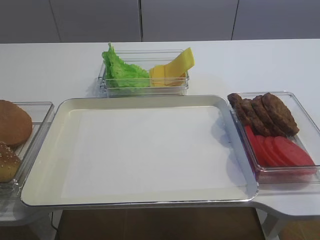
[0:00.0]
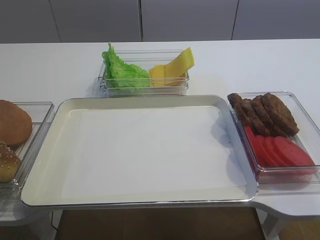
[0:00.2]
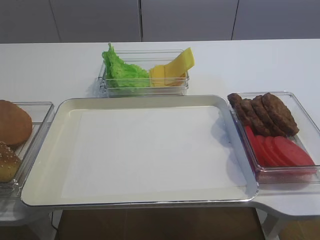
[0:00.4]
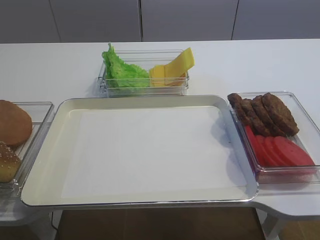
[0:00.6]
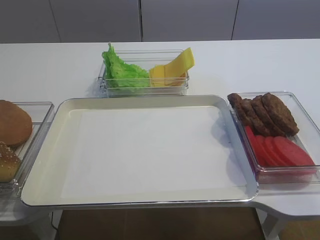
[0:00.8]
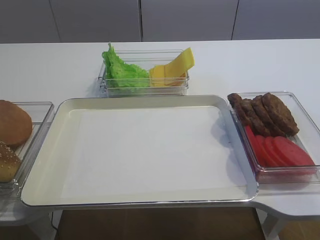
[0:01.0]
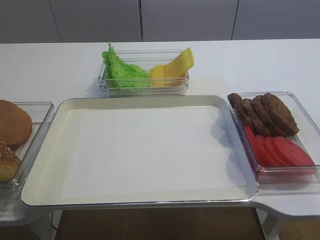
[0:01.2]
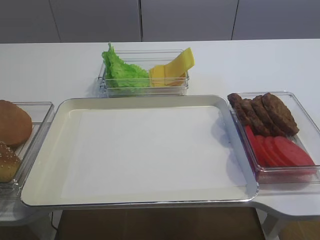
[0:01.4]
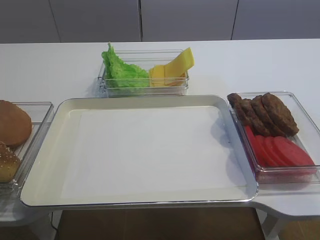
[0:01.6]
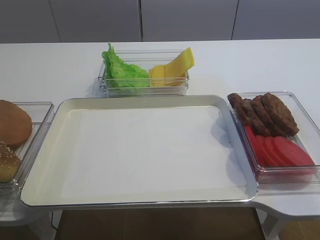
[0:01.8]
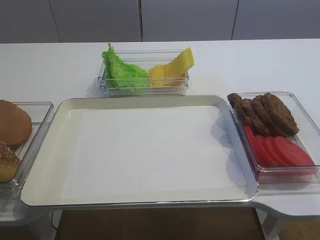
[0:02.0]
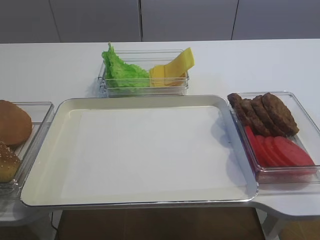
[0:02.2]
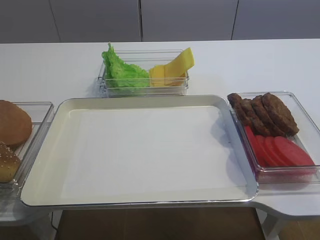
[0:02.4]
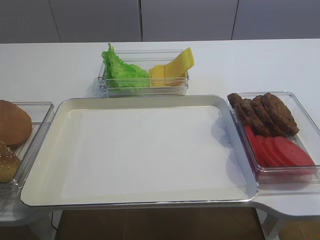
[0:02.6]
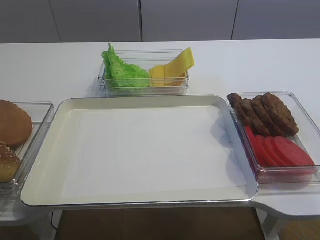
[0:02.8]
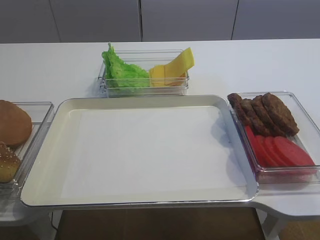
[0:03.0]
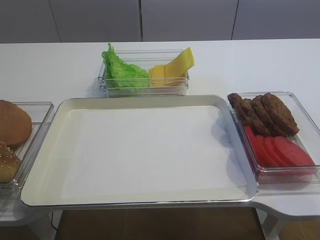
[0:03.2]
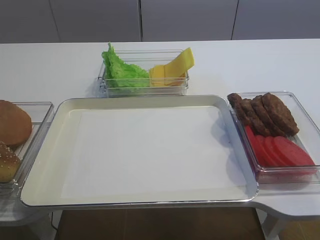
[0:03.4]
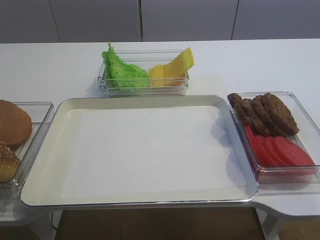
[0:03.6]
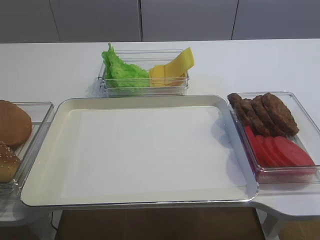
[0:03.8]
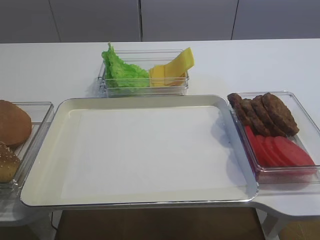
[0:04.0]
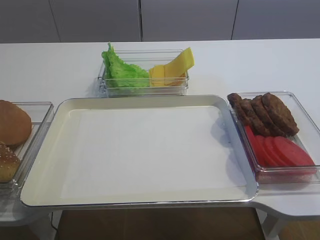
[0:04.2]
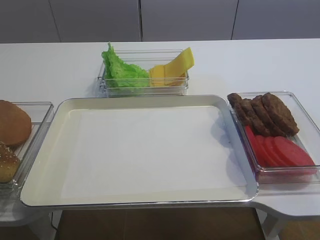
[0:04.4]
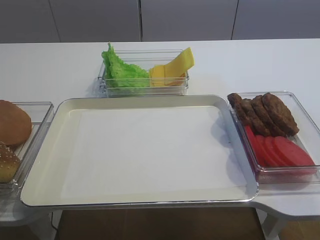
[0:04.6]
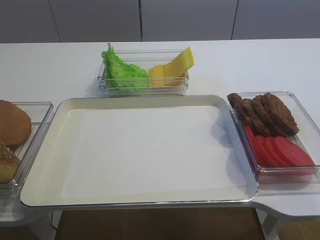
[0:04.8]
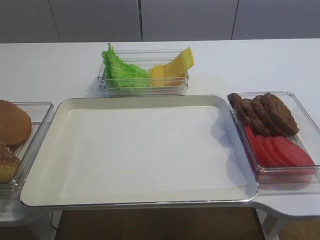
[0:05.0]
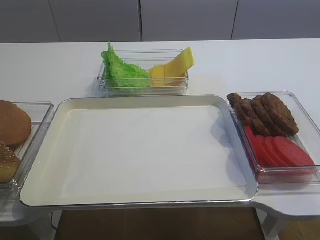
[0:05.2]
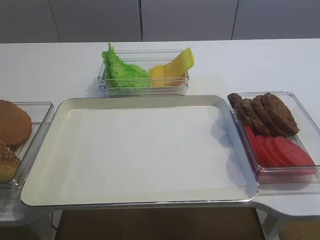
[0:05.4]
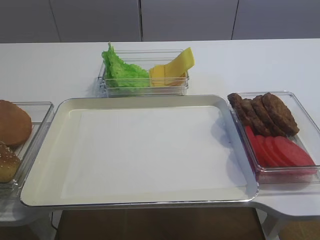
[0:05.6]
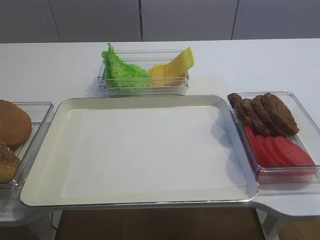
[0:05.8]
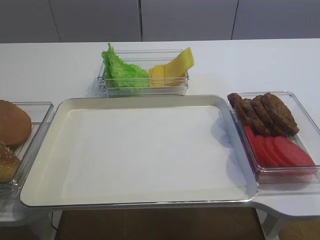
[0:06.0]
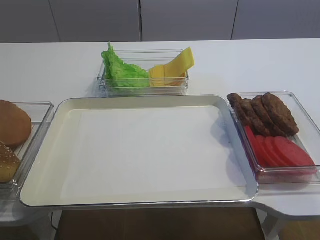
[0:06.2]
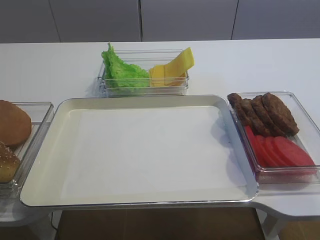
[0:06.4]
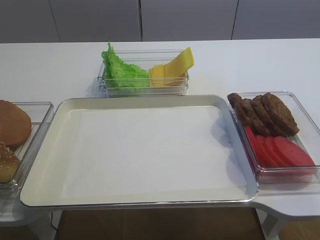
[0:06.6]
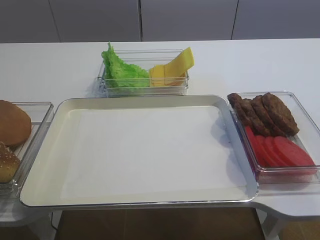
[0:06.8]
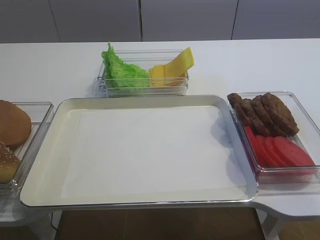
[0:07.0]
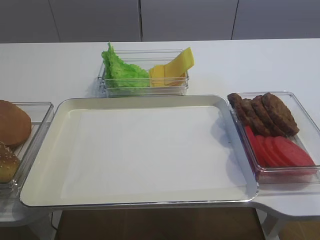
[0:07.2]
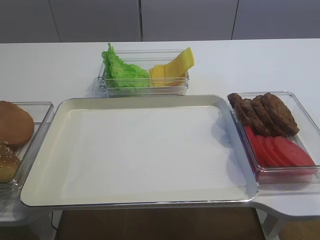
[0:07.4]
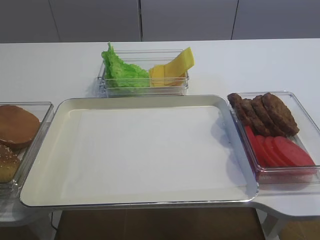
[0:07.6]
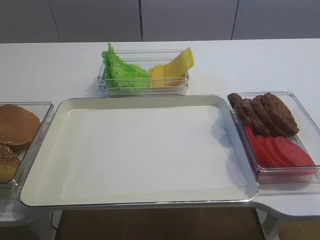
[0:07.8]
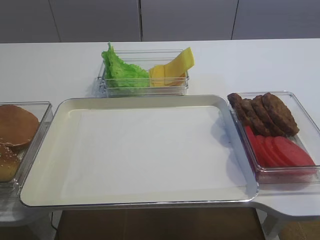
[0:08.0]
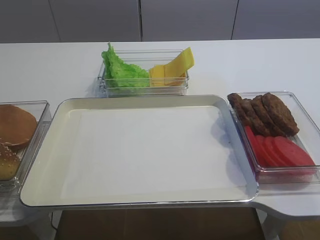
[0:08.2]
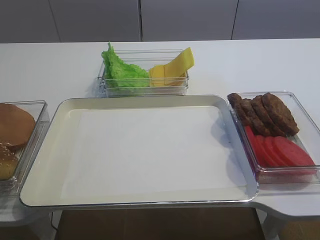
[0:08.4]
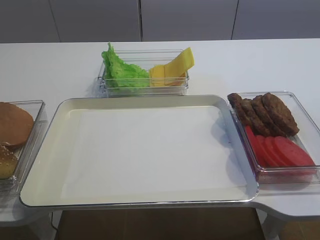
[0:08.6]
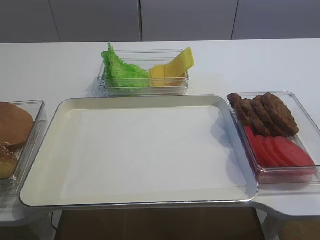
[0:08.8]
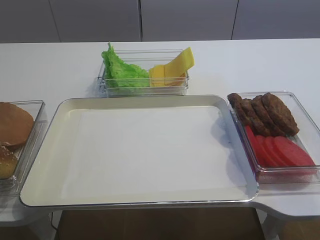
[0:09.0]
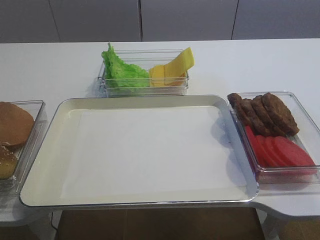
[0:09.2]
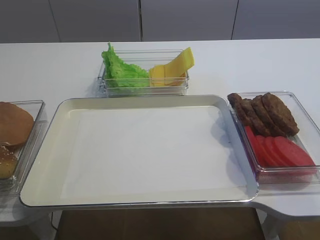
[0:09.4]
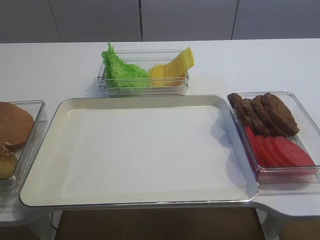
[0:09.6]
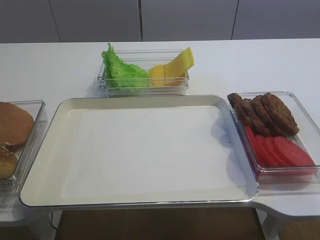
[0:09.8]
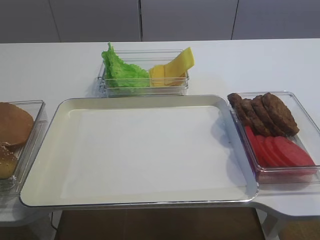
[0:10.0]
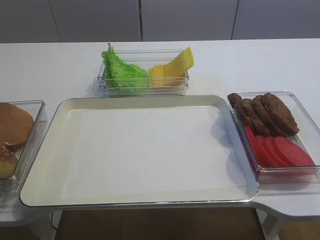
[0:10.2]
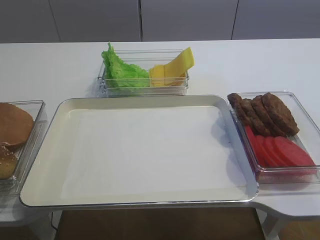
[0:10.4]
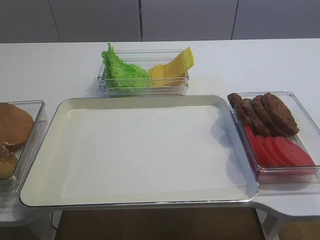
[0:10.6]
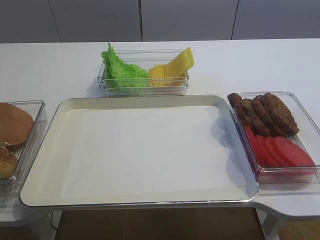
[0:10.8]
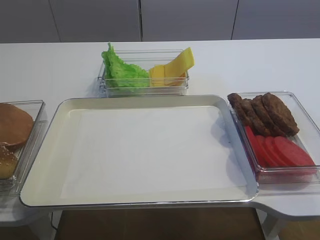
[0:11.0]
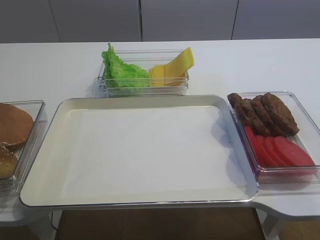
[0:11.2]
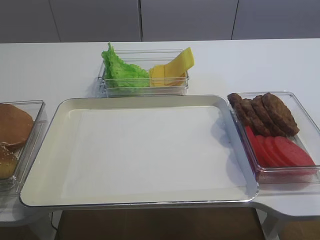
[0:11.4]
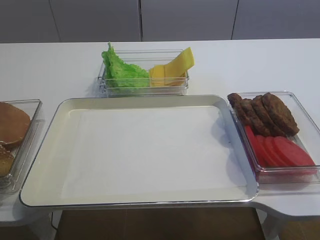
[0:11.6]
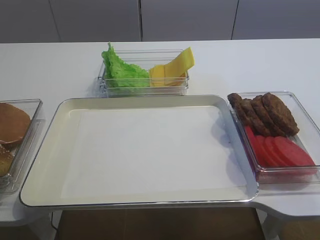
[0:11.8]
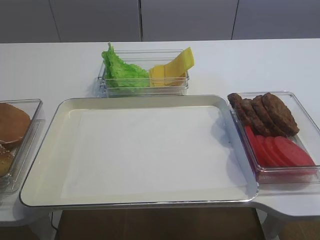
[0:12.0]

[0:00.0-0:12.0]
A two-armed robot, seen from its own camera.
0:07.6 to 0:09.0: The left gripper closes its fingers.
0:09.0 to 0:10.4: The two grippers keep their place.
0:10.4 to 0:12.0: The grippers stay close to where they were, moving slightly.

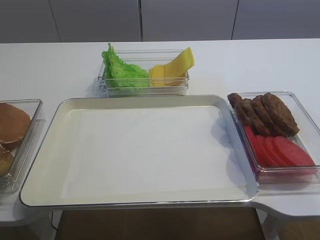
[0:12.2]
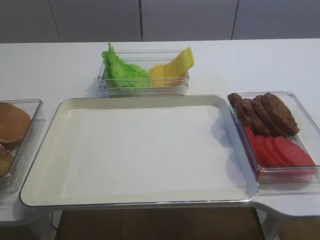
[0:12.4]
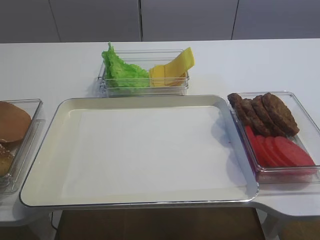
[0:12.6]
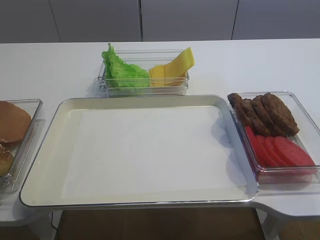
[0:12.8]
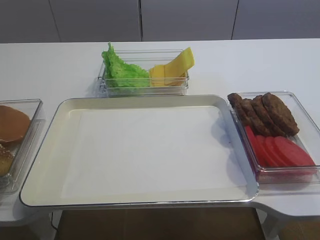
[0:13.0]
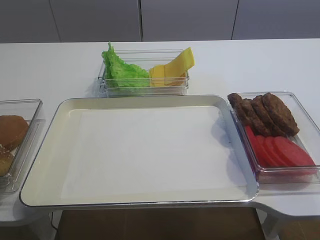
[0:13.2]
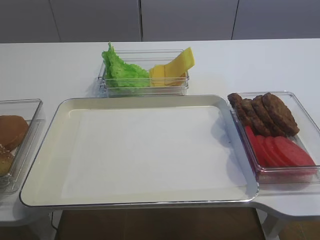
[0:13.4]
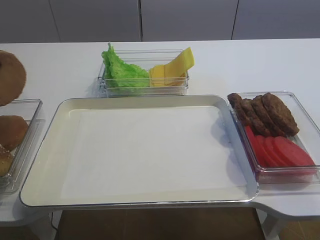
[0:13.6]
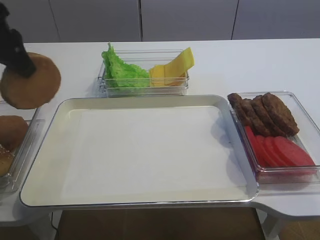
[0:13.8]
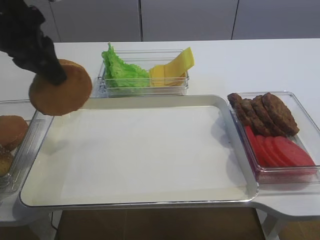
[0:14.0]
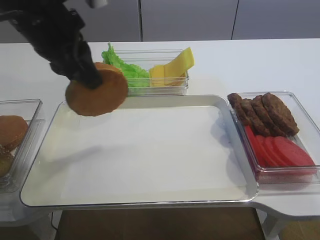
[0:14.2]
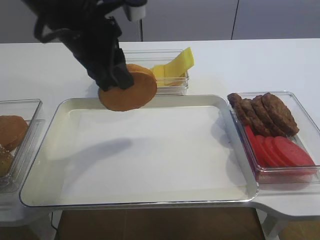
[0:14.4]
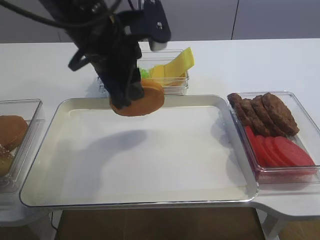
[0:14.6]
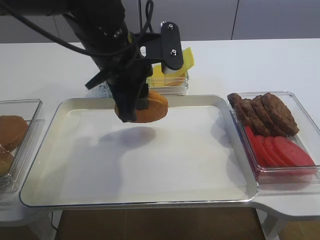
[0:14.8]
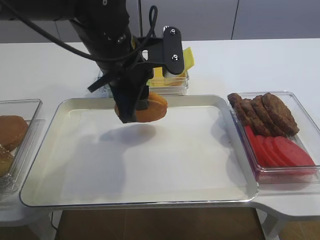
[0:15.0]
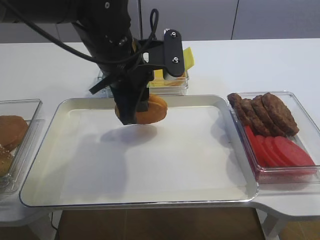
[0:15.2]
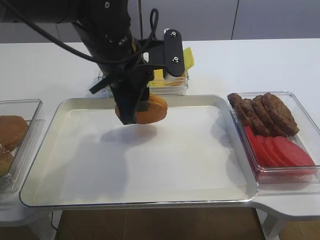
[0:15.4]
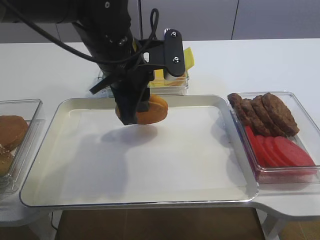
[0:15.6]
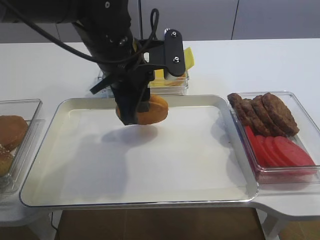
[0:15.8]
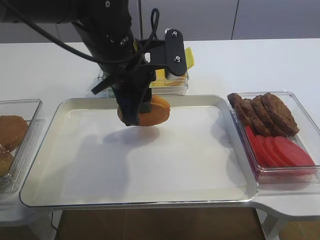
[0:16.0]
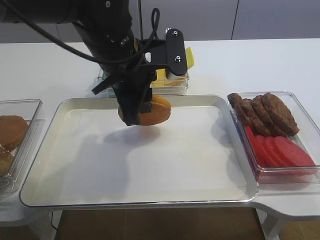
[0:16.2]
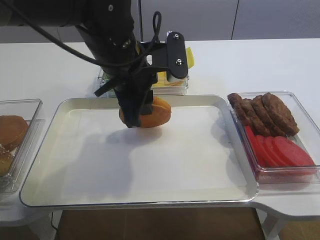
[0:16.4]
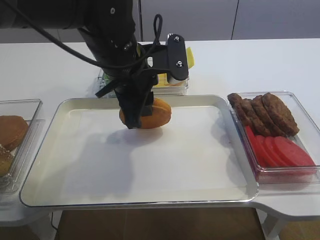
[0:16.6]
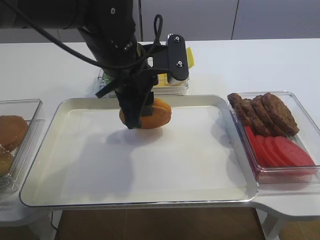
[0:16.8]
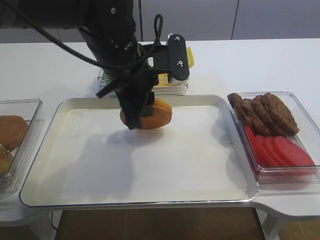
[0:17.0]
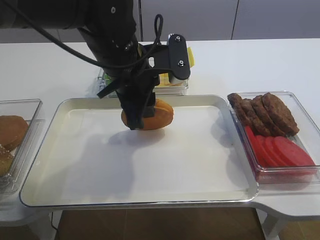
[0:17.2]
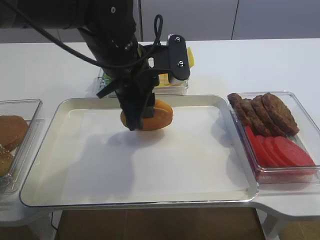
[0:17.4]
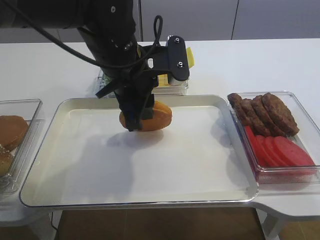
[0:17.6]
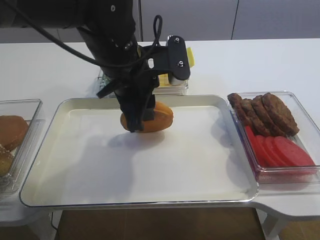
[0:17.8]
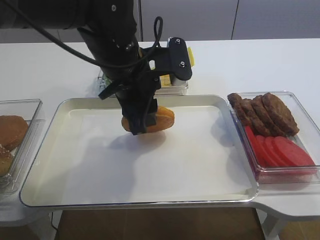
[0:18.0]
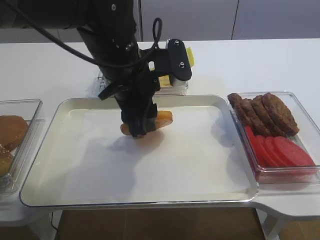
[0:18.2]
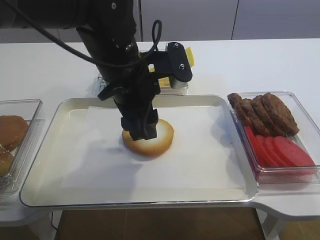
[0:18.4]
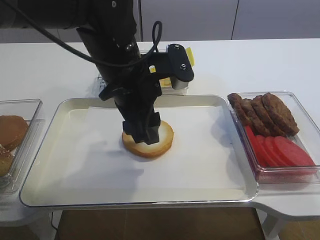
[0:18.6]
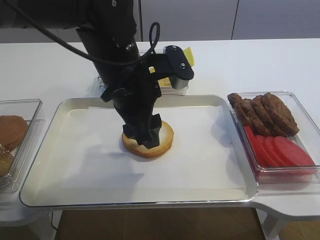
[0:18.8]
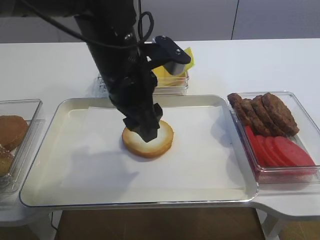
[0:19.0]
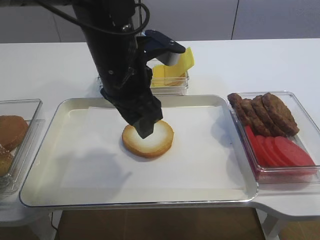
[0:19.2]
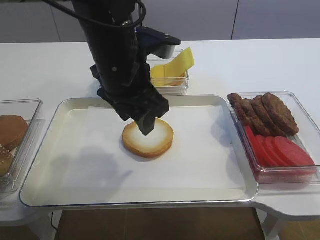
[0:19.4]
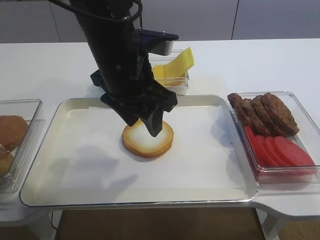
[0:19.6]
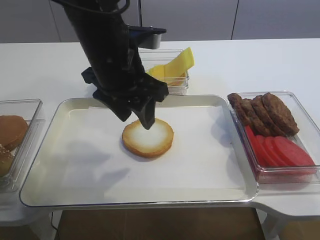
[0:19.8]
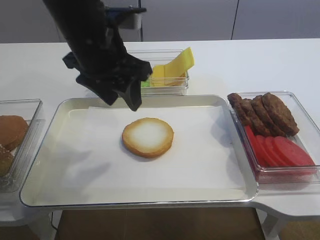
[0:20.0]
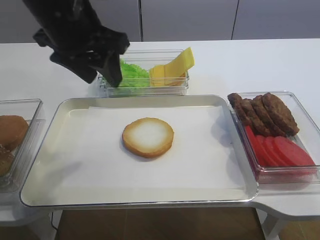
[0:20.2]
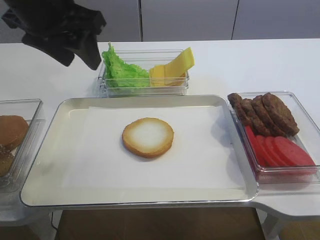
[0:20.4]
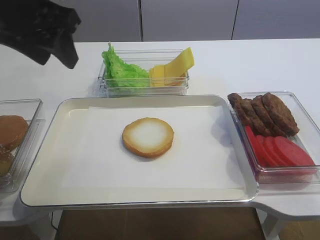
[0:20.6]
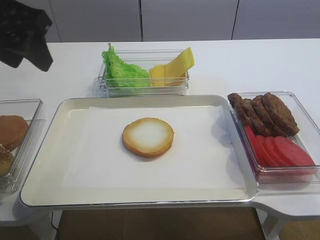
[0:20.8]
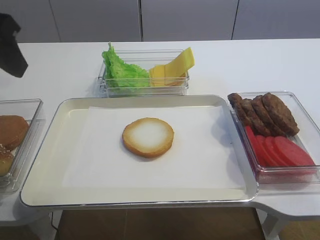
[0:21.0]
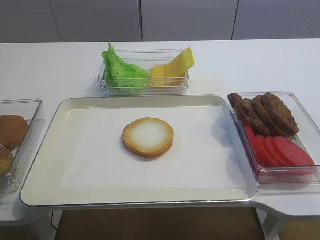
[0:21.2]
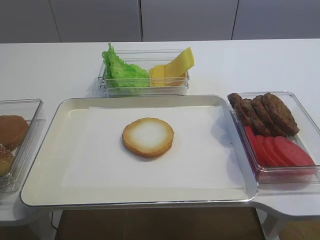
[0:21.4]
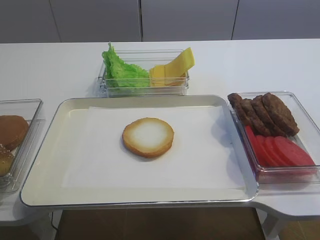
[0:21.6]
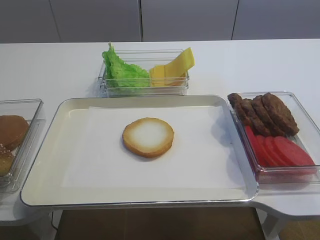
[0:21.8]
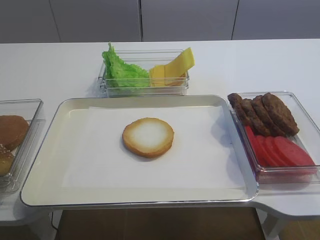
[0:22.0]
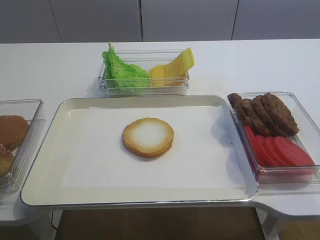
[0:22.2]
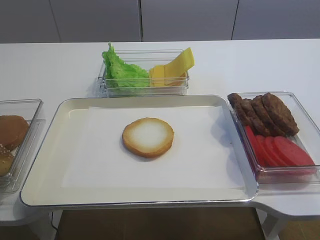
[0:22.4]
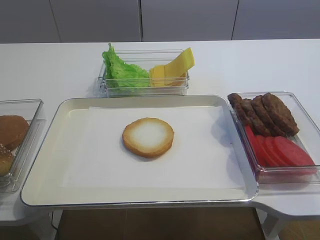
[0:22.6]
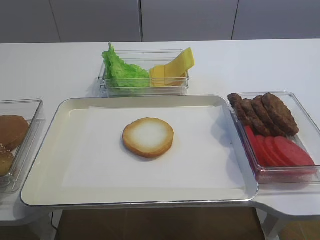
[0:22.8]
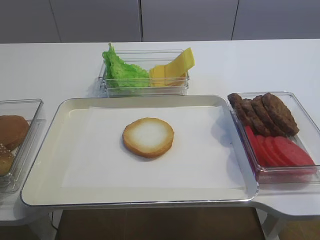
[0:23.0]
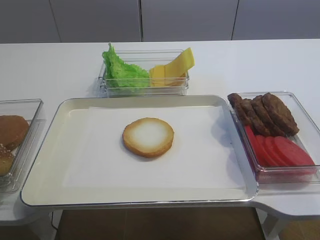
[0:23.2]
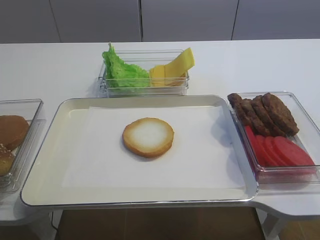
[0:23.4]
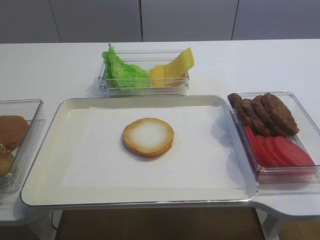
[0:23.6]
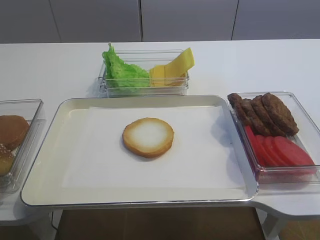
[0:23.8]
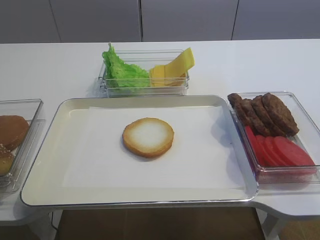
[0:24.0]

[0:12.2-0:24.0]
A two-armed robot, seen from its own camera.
Step, 0:13.8 to 0:19.6: Place the bread slice on the tray with the left gripper.
0:12.2 to 0:13.6: The left gripper moves upward and to the right, about 10 cm.
0:13.6 to 0:15.2: The left gripper shifts approximately 25 cm to the right.
0:15.2 to 0:16.6: The two grippers keep their place.
0:16.6 to 0:18.2: The grippers make only small movements.
0:19.6 to 0:21.0: The left gripper goes approximately 20 cm to the left and upward.
0:21.0 to 0:22.6: The left gripper travels backward by approximately 25 cm.
